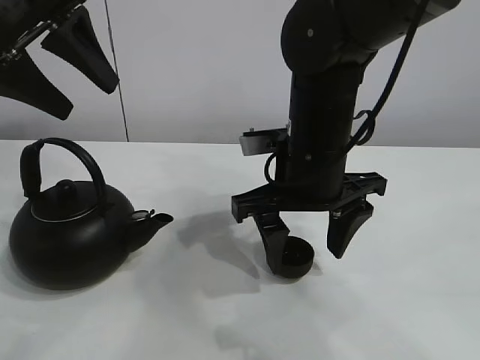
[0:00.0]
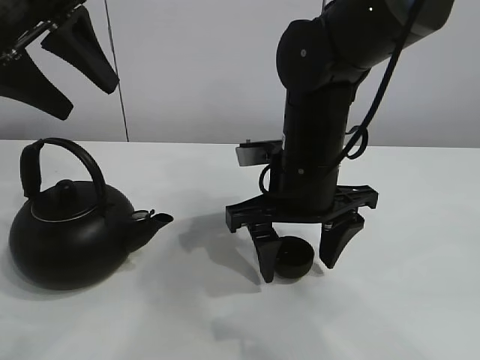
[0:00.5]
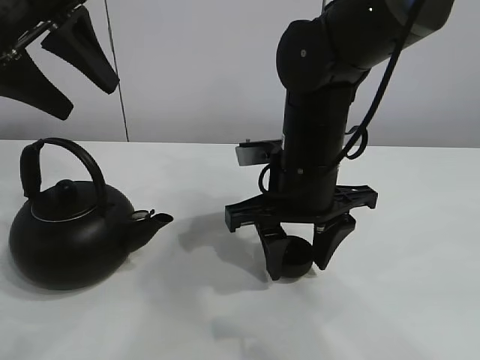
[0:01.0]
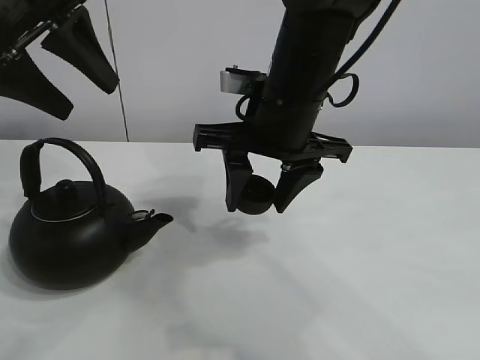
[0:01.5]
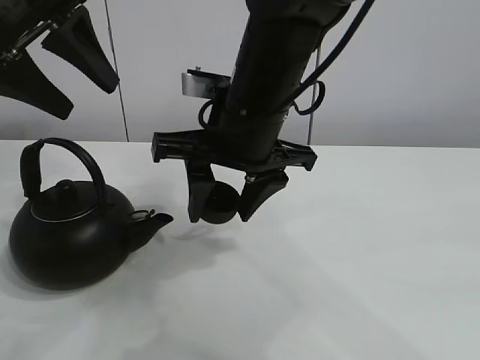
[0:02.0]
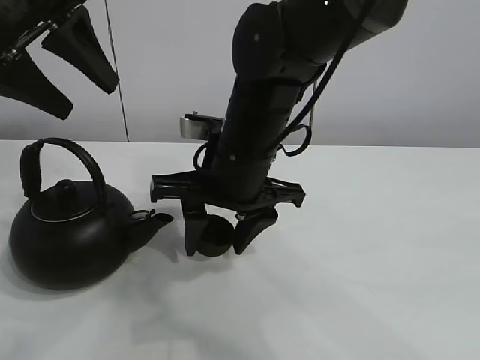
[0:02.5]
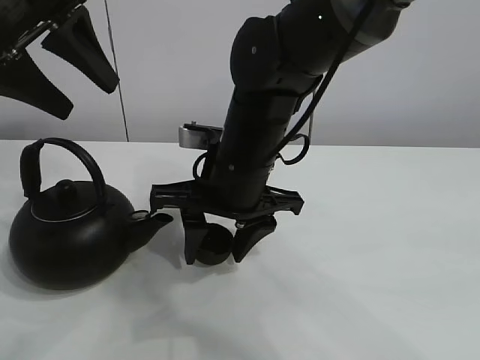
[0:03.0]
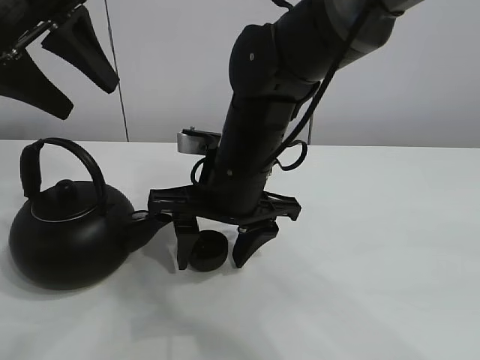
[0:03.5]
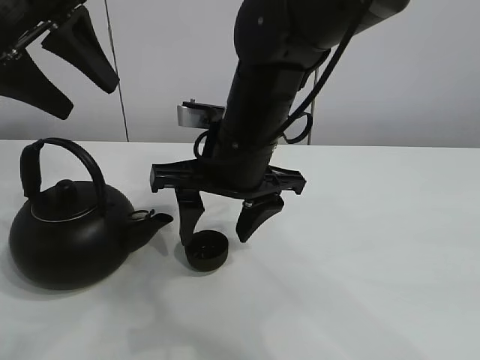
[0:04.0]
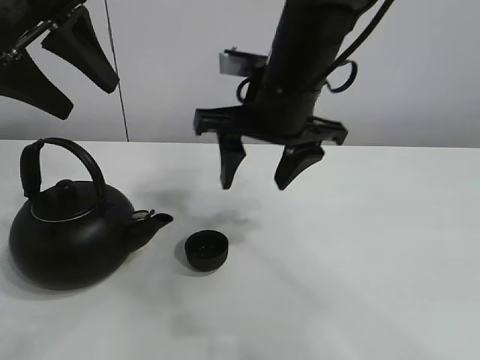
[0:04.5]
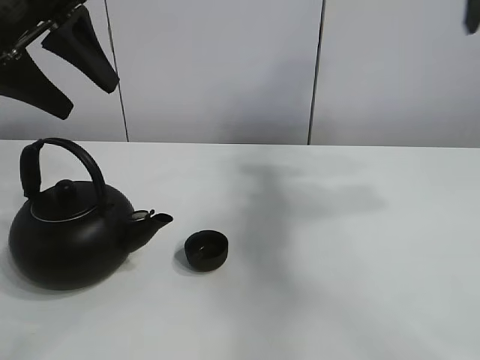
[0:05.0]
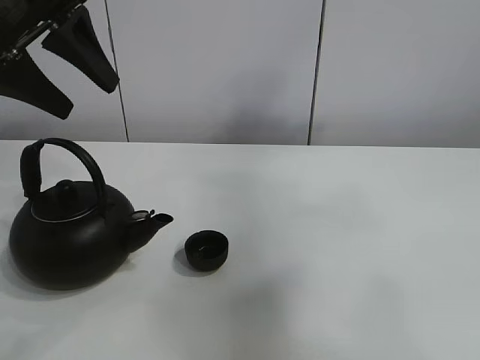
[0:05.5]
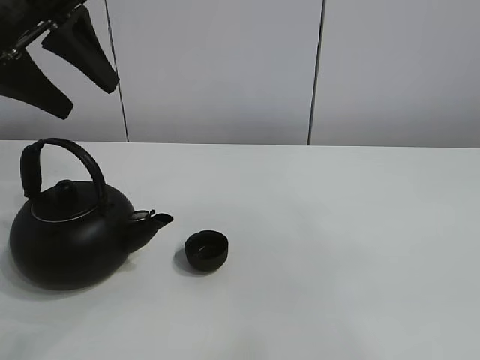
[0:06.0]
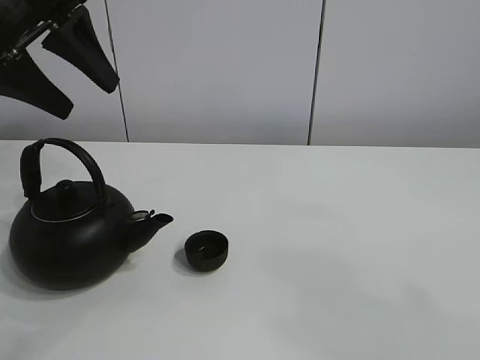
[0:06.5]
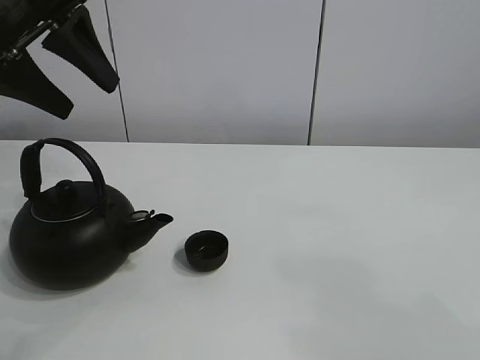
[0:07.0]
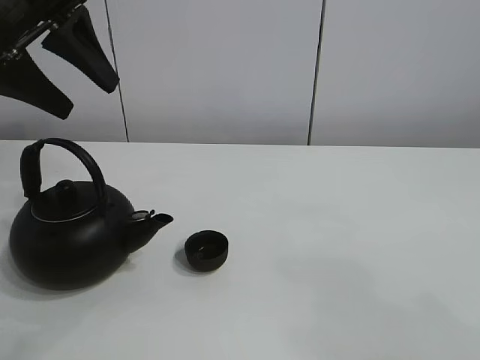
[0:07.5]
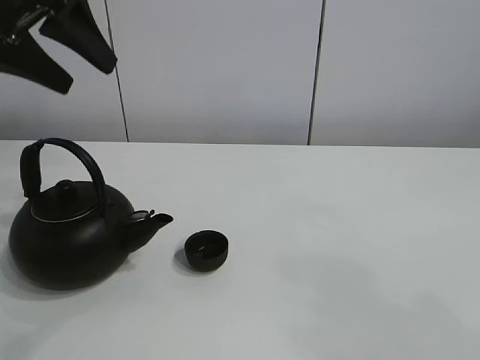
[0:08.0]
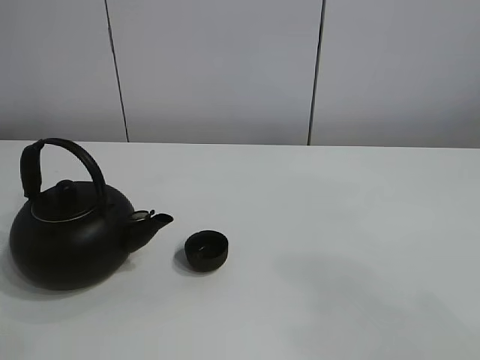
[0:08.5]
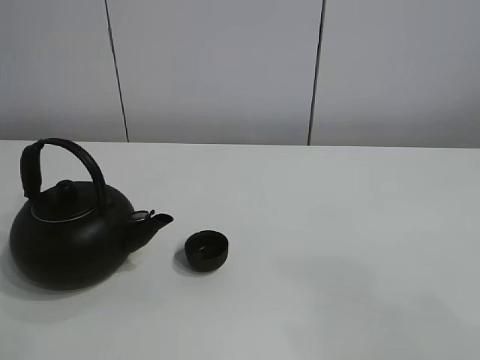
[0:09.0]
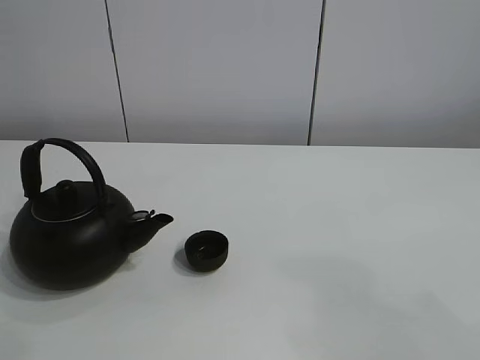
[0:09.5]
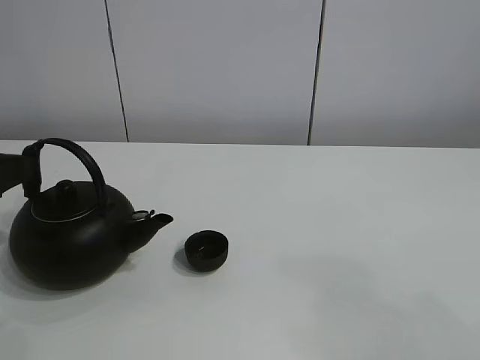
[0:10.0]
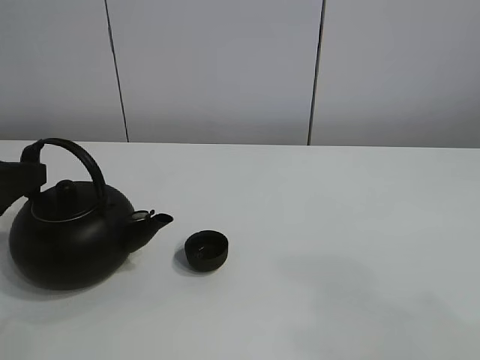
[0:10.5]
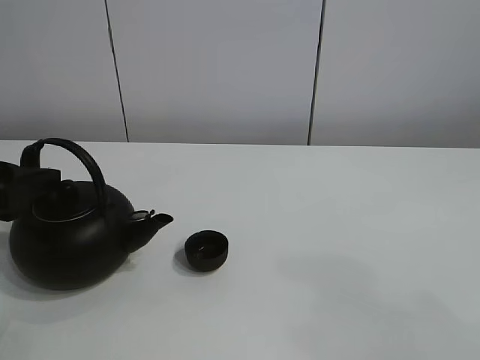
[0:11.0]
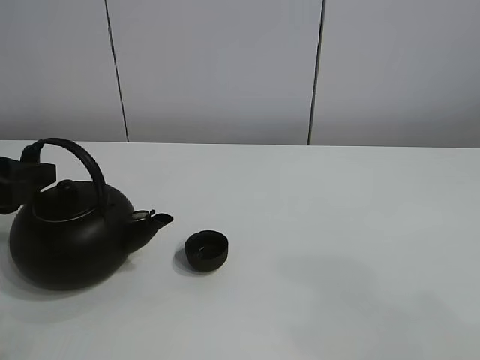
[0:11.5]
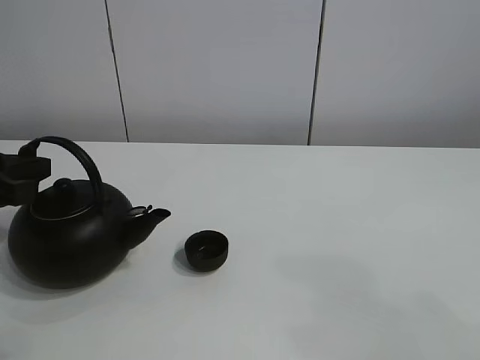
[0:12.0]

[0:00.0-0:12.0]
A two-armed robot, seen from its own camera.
Task of the whole recording: pour tea into the teacup.
Step, 0:01.5 to 0:03.0: Place the teacup in the center of view with the right gripper.
0:00.0 to 0:02.0: The right gripper travels to the left by roughly 5 cm, and closes.
0:02.0 to 0:04.0: The right gripper opens.
0:04.0 to 0:06.0: The right gripper is displaced backward, upward and to the right by roughly 50 cm.
0:08.0 to 0:10.0: The left gripper shifts approximately 20 cm downward and backward.
0:10.0 to 0:12.0: The left gripper travels forward by roughly 5 cm, and closes its fingers.

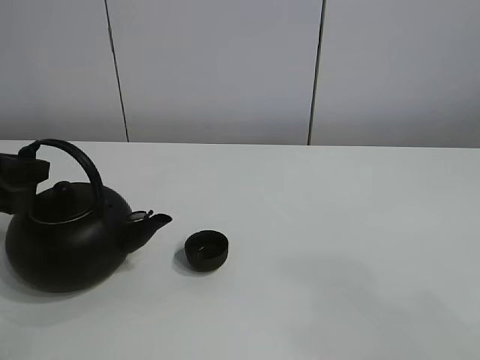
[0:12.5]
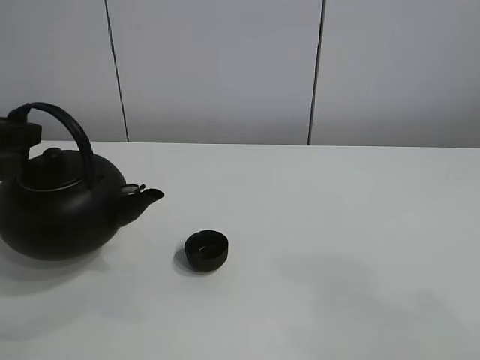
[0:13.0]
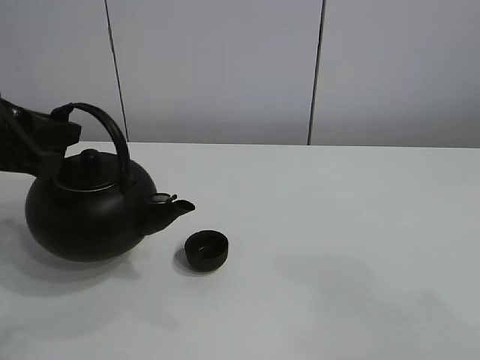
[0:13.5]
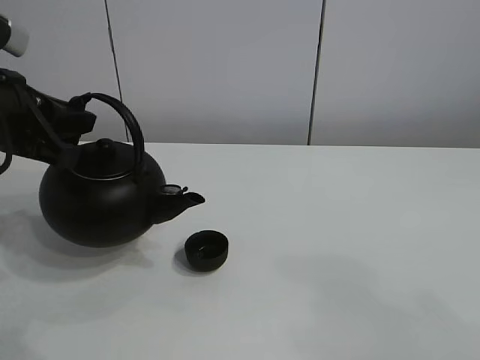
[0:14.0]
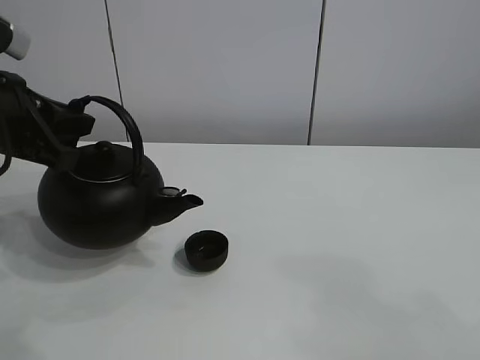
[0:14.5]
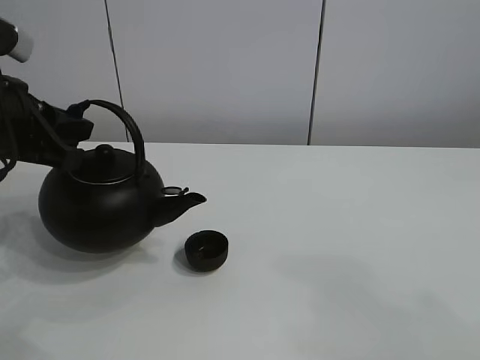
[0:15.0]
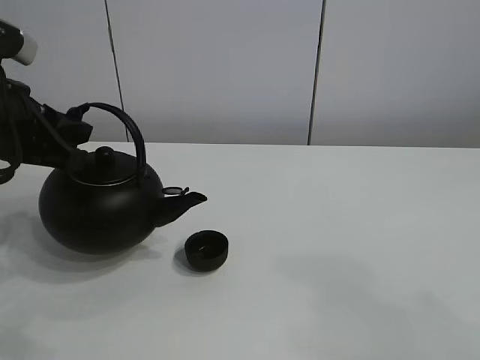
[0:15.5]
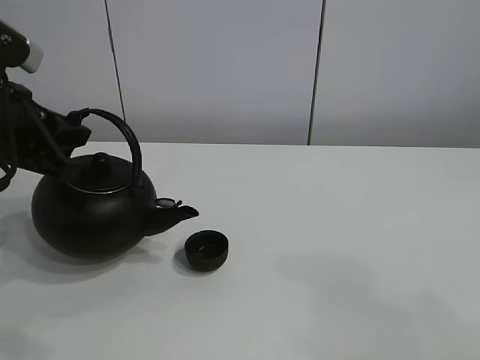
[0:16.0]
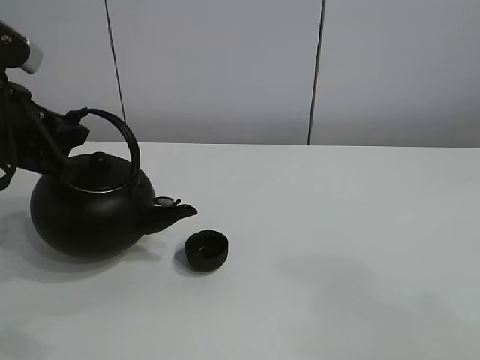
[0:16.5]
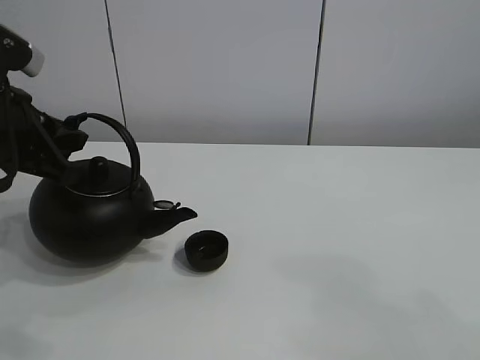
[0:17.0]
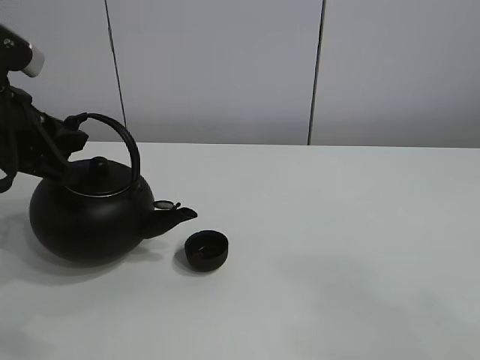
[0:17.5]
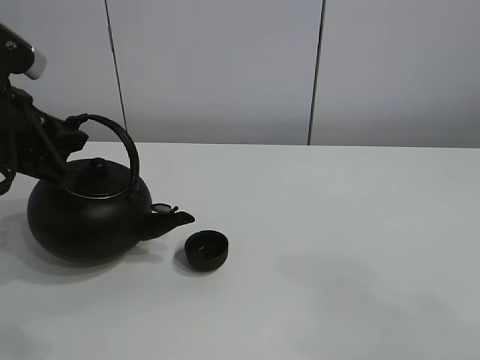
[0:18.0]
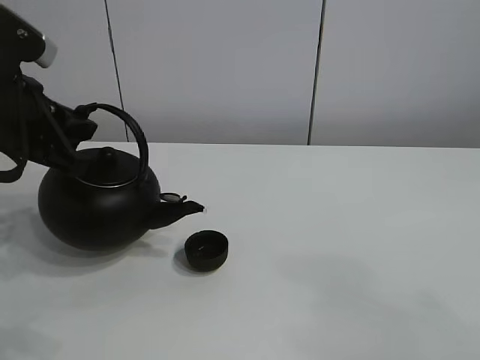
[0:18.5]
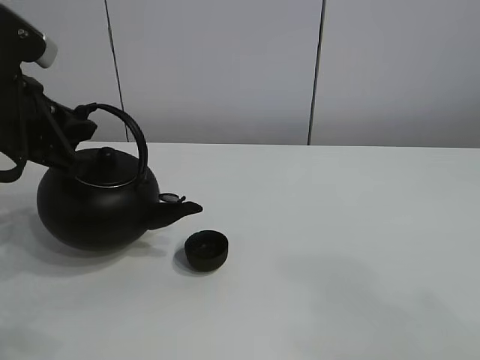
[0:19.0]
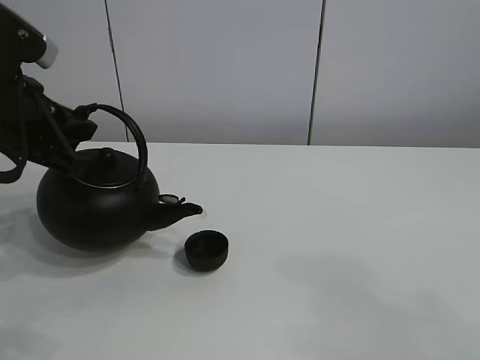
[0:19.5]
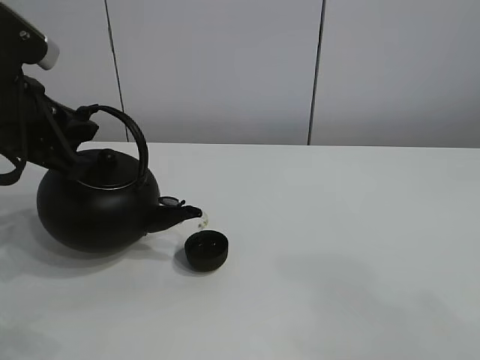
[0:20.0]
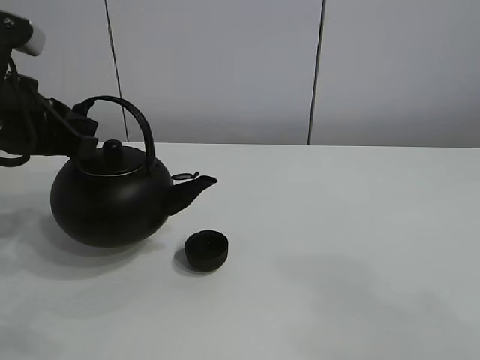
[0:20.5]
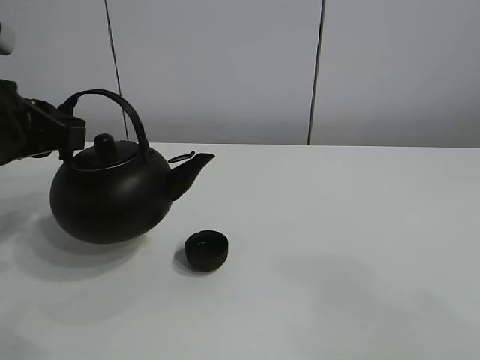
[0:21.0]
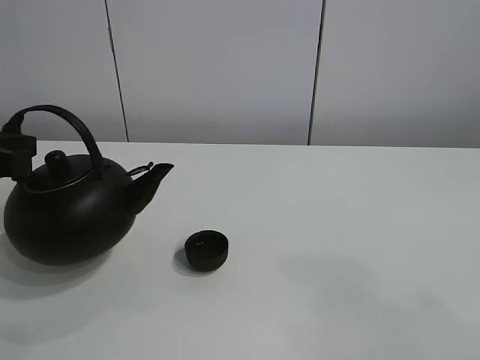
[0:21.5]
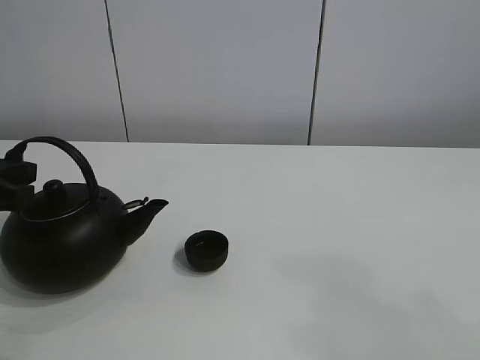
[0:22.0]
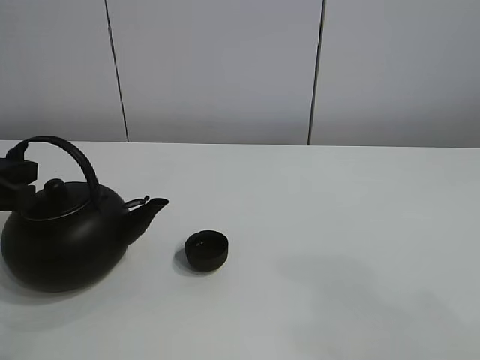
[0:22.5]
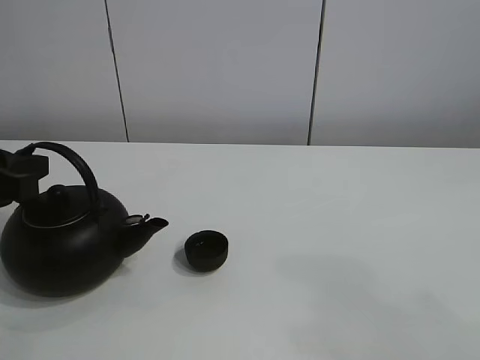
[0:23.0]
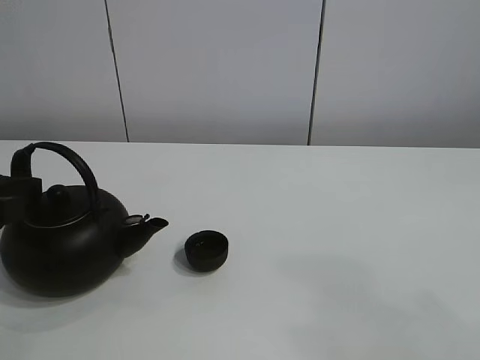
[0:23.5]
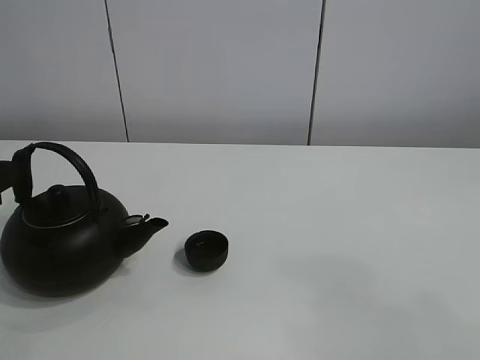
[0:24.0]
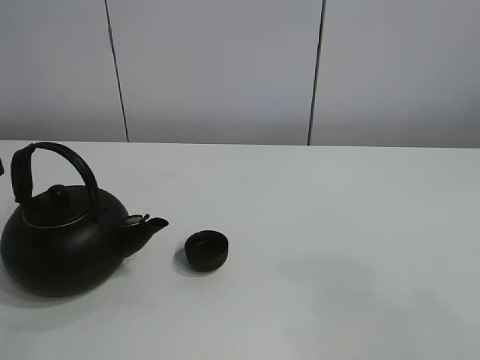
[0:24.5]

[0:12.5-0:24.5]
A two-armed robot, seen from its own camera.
Task of the whole recording: pour tea into the teacup.
Step, 0:13.0 to 0:20.0: Pour tea into the teacup with the left gripper.
0:12.5 to 0:14.5: The left gripper is displaced upward by roughly 5 cm.
0:14.5 to 0:16.5: The grippers make only small movements.
0:16.5 to 0:18.5: The two grippers keep their place.
0:18.5 to 0:20.5: There are only small adjustments of the grippers.
0:20.5 to 0:22.5: The left gripper is displaced downward and to the left by roughly 10 cm.
0:22.5 to 0:24.5: The left gripper opens.
